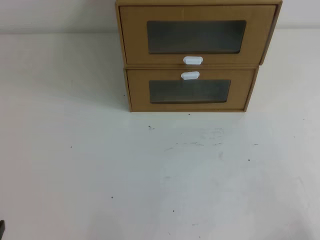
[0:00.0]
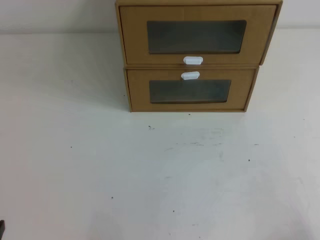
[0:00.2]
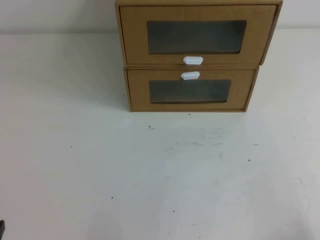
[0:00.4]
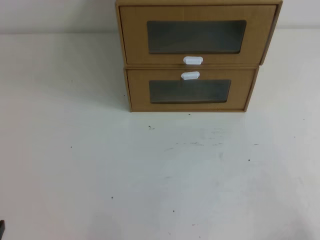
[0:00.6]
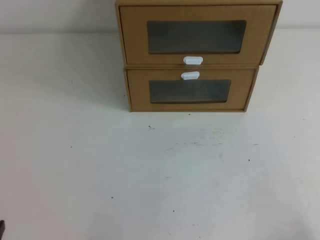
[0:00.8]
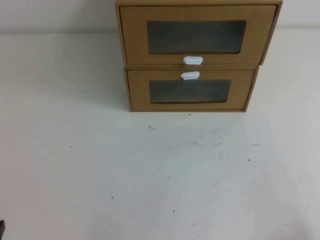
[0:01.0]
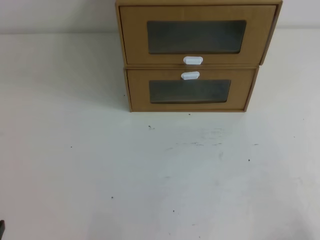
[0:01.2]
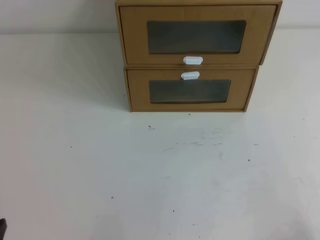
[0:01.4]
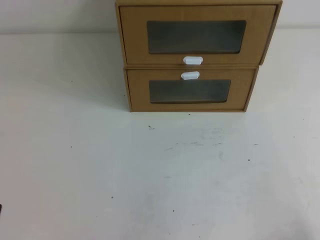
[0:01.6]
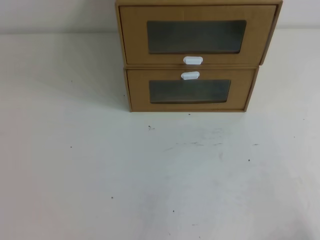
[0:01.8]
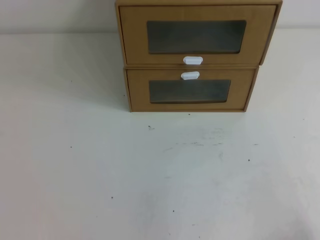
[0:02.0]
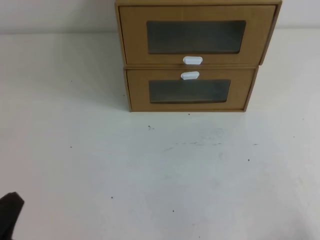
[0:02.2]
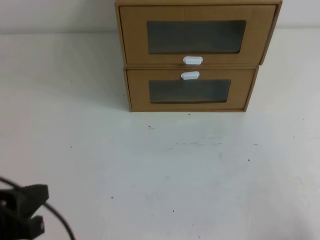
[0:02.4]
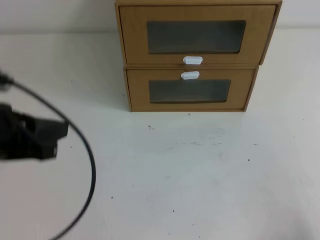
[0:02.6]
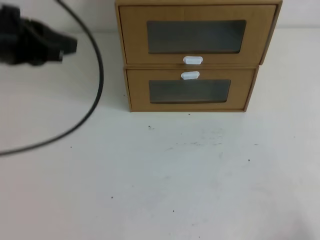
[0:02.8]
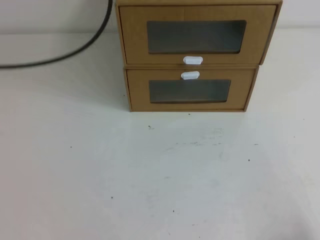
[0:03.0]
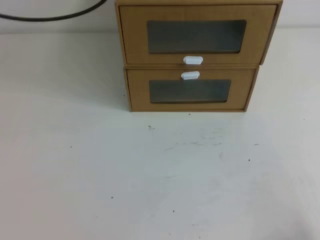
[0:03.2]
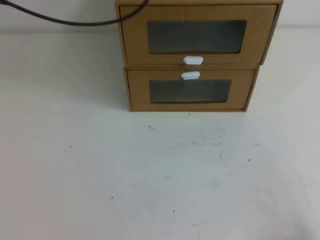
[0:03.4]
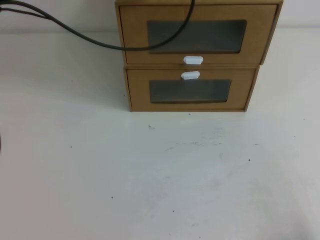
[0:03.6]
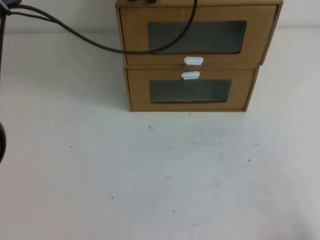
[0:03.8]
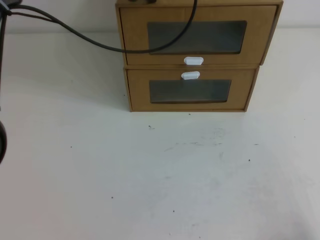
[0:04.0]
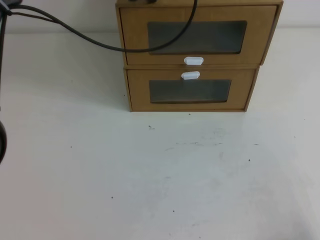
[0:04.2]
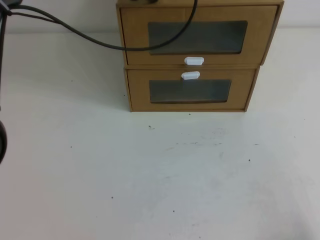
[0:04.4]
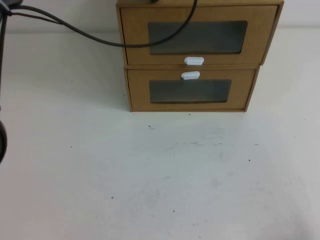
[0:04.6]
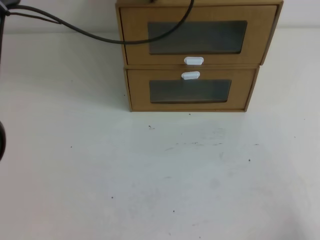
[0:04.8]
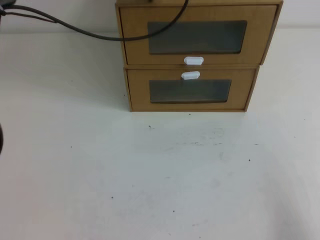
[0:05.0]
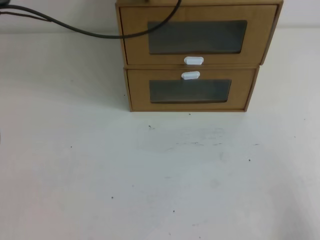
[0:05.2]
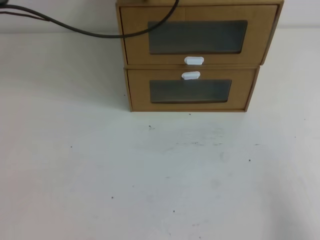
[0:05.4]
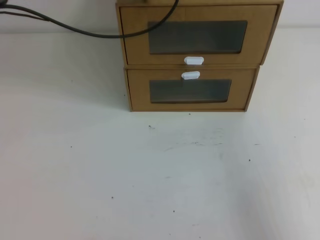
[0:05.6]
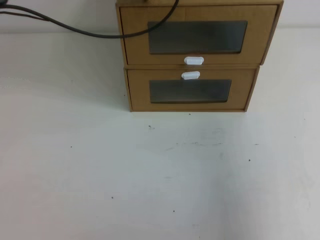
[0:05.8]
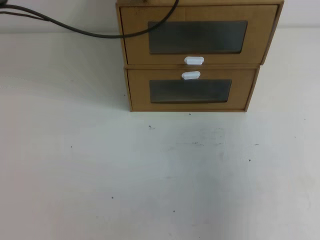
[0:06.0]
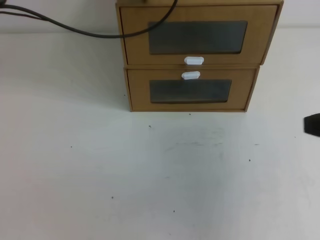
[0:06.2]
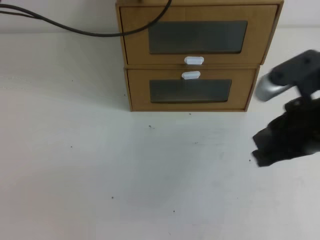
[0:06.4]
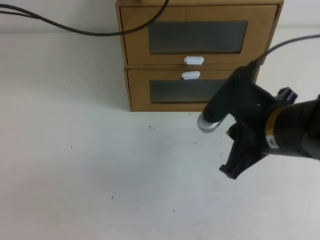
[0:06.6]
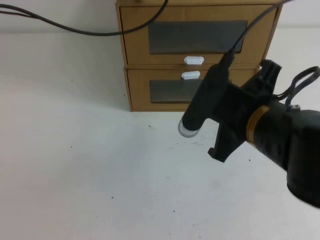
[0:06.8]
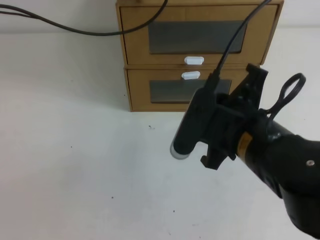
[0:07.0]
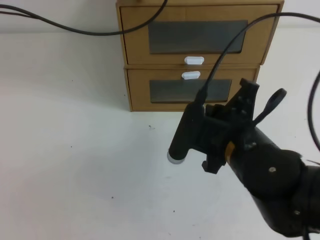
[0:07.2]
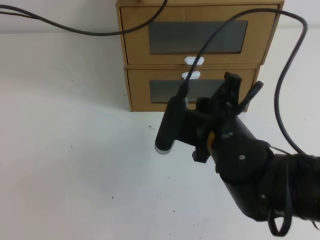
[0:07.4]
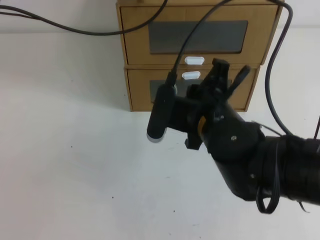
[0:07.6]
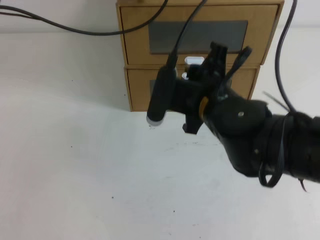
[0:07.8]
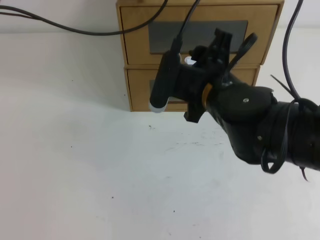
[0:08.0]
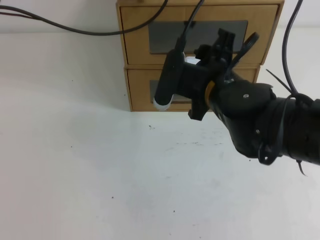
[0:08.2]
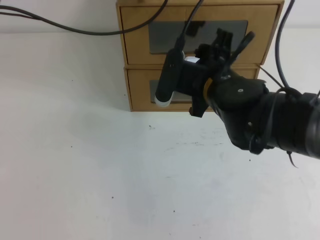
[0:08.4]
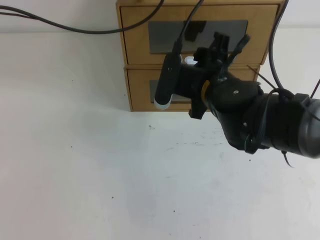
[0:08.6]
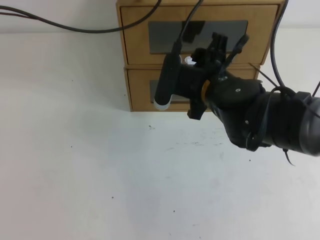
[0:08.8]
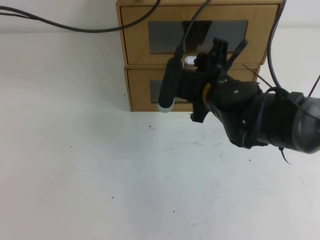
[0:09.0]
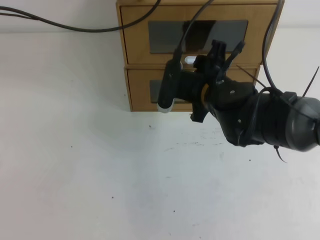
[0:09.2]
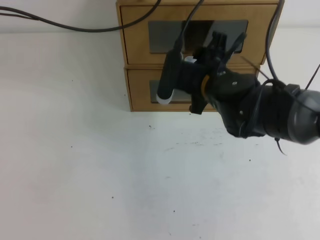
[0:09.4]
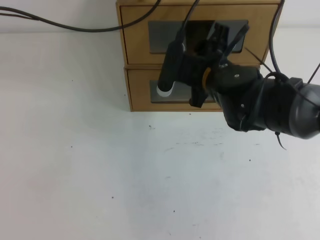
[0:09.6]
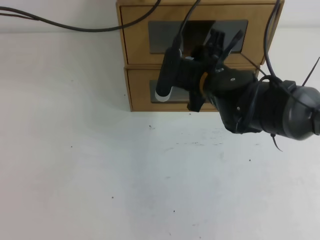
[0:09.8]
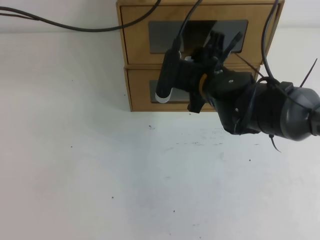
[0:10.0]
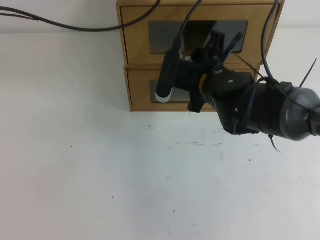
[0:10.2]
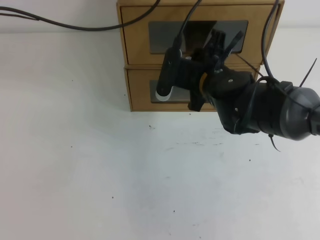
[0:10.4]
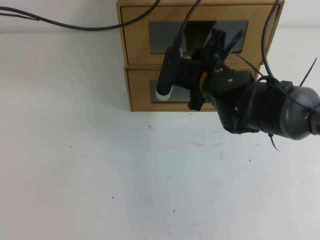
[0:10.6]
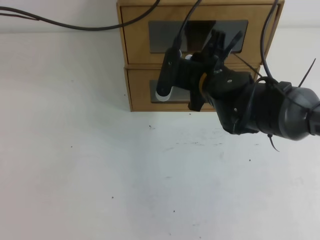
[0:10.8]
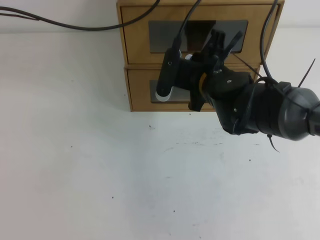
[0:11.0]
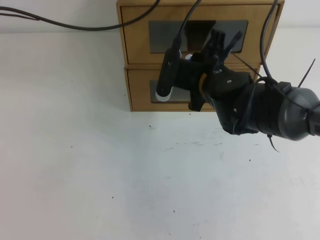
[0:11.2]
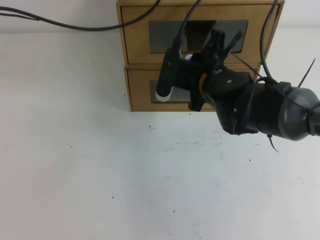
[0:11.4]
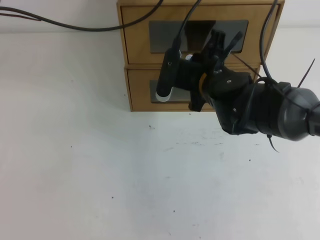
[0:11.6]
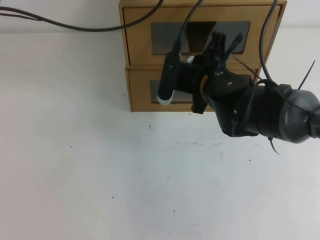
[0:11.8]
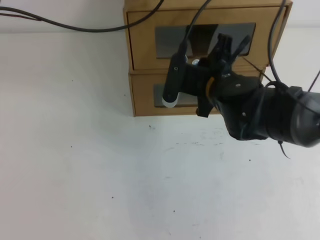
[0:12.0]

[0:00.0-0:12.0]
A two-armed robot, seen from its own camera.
Task of the whole recording: open the shoebox on the table.
0:01.6 to 0:03.0: The left gripper goes some 35 cm upward and forward.
0:03.0 to 0:04.4: The left gripper heads forward and to the right, covering about 15 cm.
0:04.4 to 0:06.0: The right gripper travels upward and forward by approximately 20 cm.
0:06.0 to 0:07.6: The right gripper shifts roughly 25 cm to the left and forward.
0:07.6 to 0:09.0: The right gripper travels forward by approximately 10 cm, and opens its fingers.
0:09.0 to 0:10.4: The right gripper closes up.
0:10.4 to 0:12.0: The right gripper closes up.

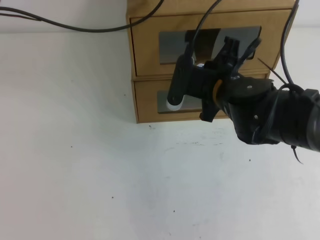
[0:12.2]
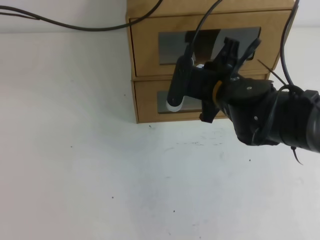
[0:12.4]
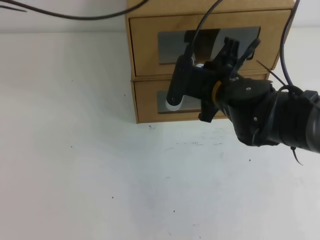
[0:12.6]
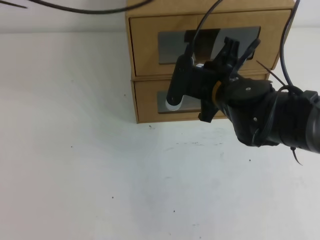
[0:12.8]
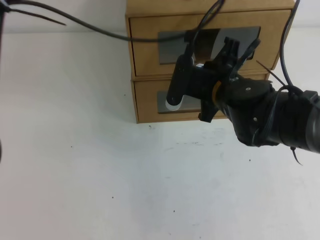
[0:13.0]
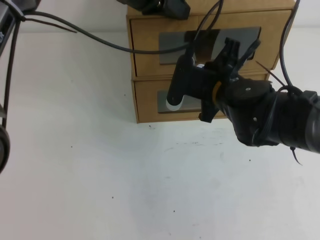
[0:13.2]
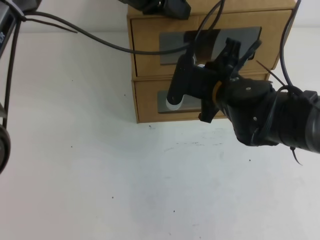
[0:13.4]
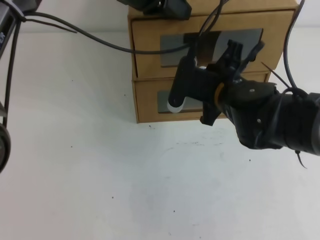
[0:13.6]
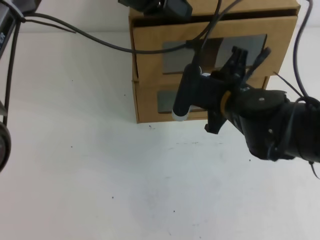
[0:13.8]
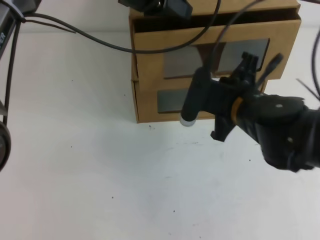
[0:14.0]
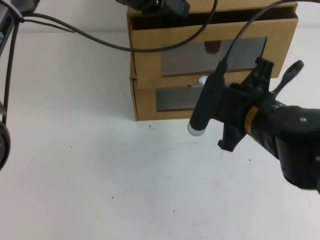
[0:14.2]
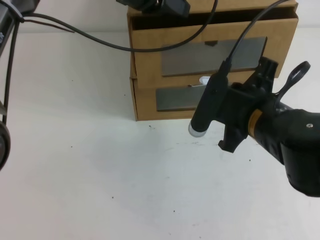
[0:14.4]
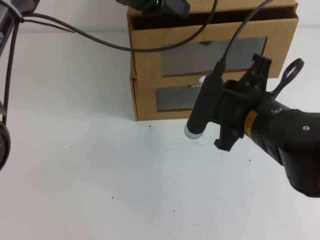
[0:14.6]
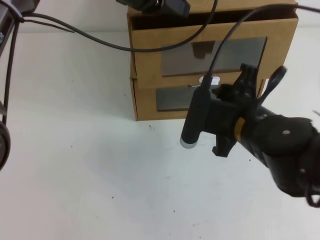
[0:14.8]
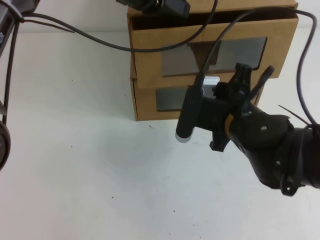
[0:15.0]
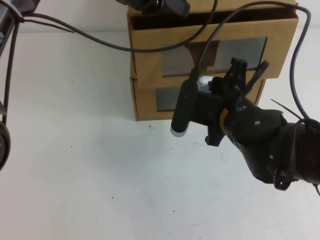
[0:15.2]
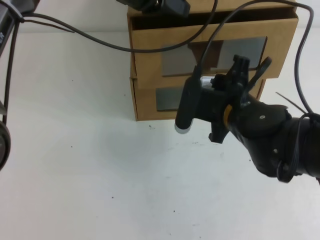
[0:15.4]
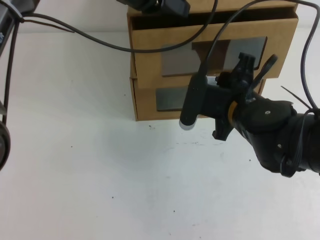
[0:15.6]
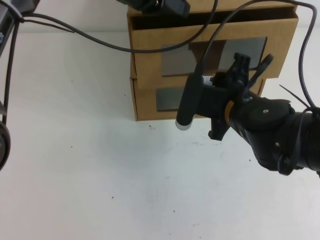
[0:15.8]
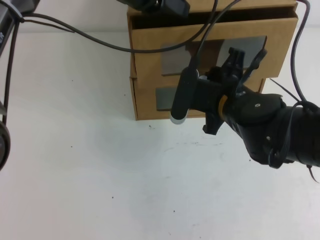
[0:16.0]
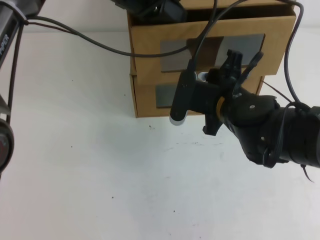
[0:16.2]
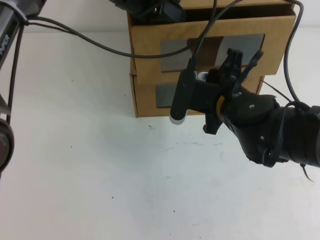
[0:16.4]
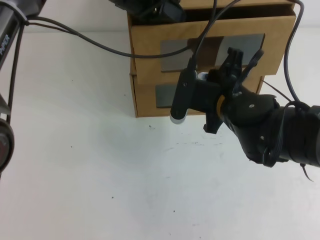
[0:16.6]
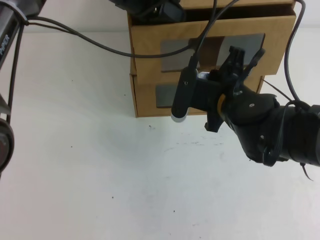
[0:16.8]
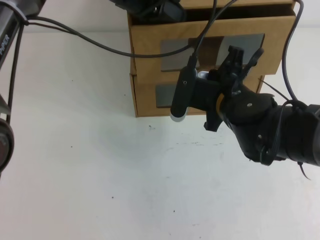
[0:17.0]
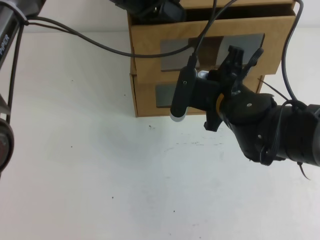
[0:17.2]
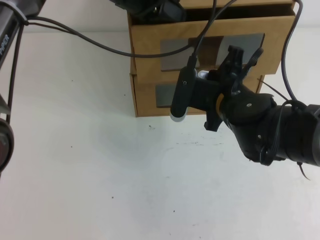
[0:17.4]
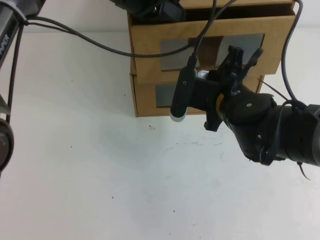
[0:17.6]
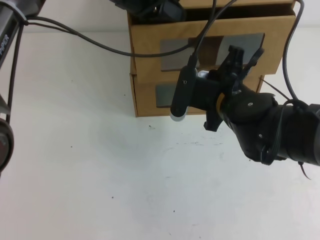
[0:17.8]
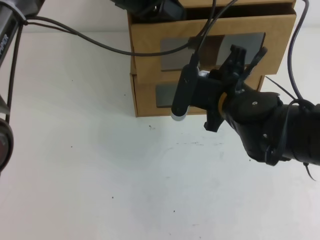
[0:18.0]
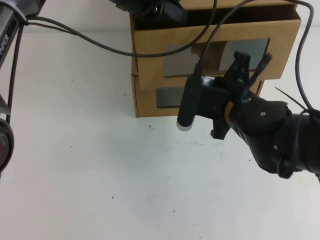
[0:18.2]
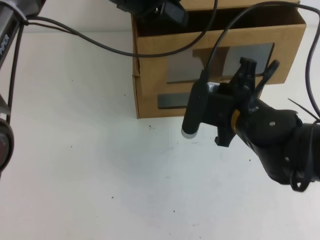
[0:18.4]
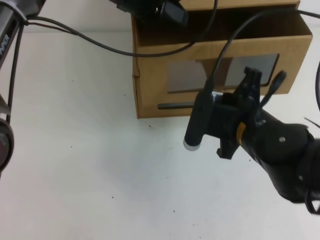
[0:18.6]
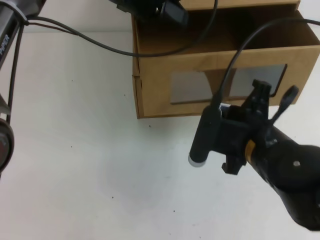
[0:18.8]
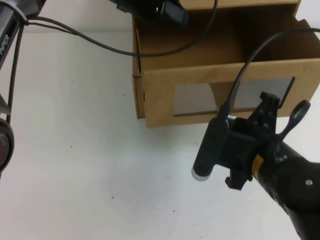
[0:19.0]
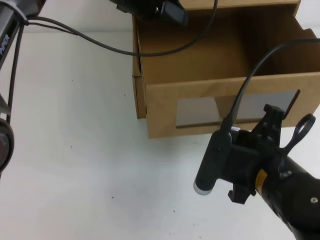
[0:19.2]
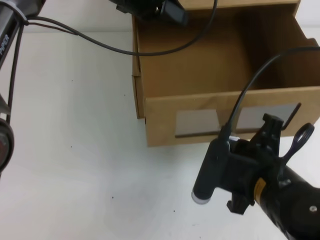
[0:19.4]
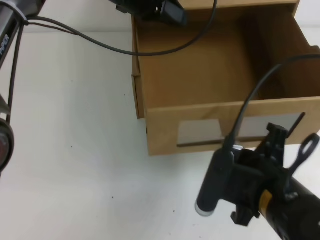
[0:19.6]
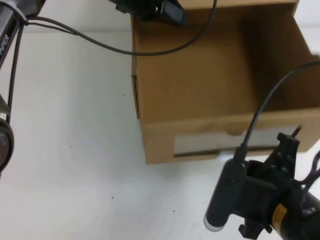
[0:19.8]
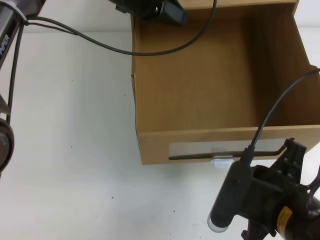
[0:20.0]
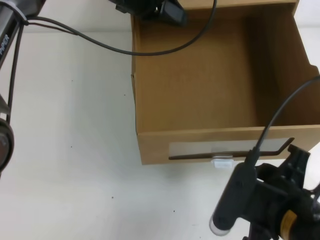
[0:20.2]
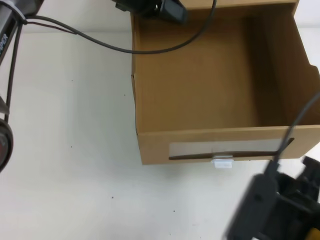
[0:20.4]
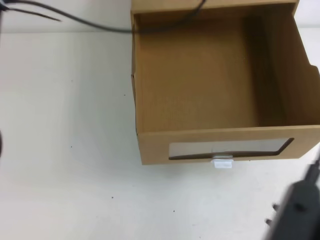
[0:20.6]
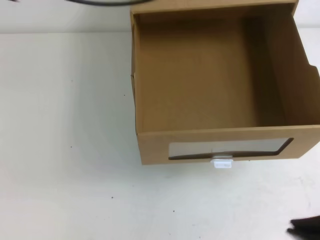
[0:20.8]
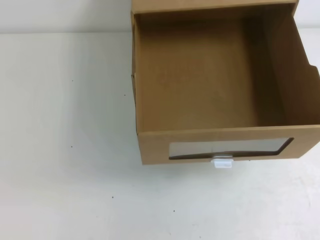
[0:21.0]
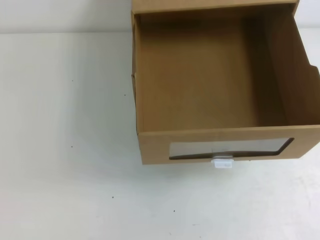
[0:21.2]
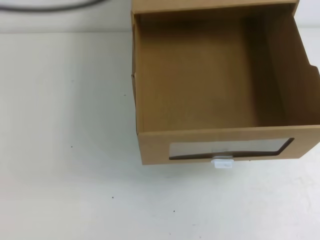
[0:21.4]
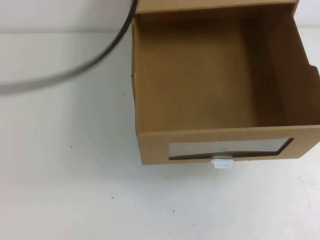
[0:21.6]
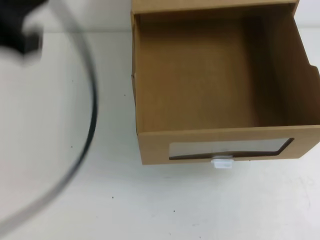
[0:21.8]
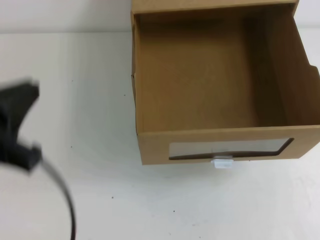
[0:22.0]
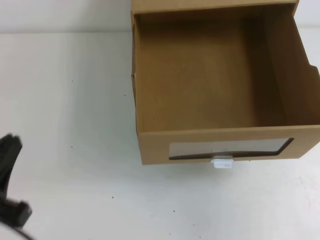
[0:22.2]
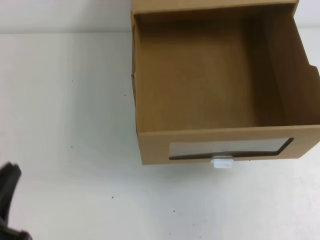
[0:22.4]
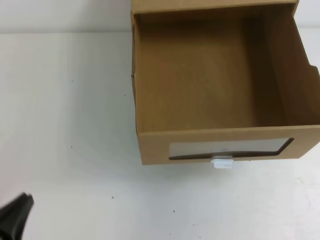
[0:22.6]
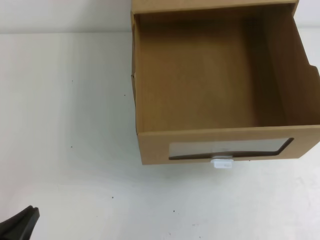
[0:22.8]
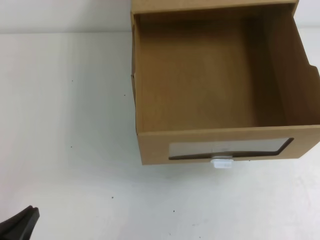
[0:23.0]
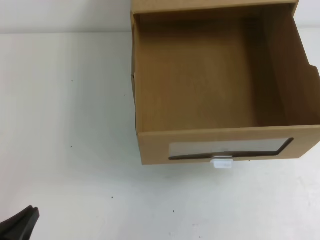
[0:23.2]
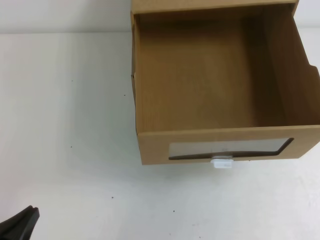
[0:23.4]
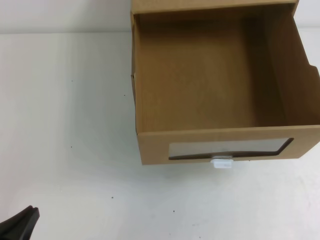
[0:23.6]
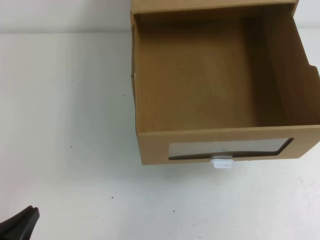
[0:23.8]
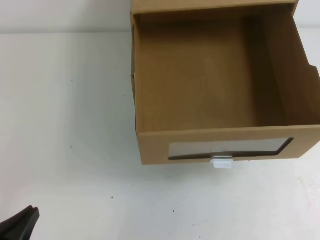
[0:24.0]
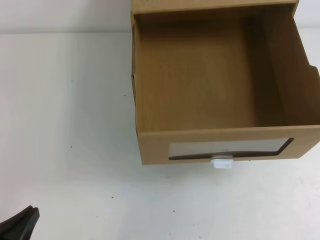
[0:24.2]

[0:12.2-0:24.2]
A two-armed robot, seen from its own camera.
Task of the whole recording: open the shoebox on the table.
0:12.2 to 0:13.8: The left gripper travels to the right by approximately 5 cm.
0:13.8 to 0:15.2: The right gripper opens.
0:15.2 to 0:18.2: There are only small adjustments of the grippers.
0:18.2 to 0:19.8: The right gripper shifts roughly 15 cm backward.
0:19.8 to 0:21.2: The right gripper heads upward, to the right and backward, covering about 25 cm, and opens, then closes once more. The left gripper is displaced upward, backward and to the left by approximately 25 cm.
0:21.2 to 0:22.6: The left gripper is displaced downward and backward by roughly 40 cm.
0:22.6 to 0:24.2: There are only small adjustments of the grippers.
